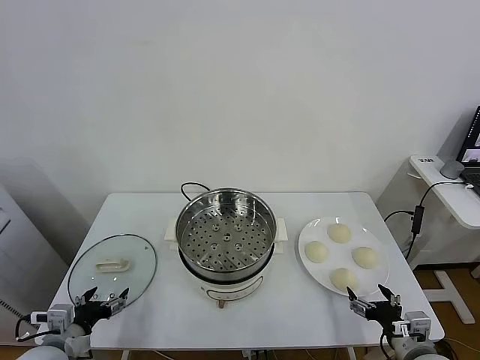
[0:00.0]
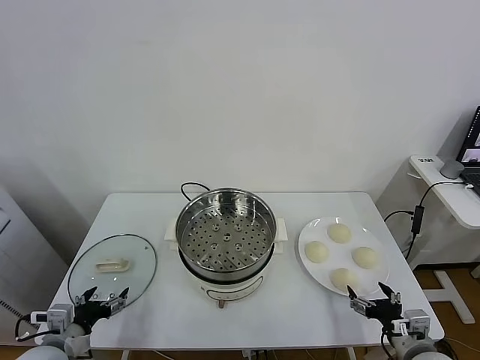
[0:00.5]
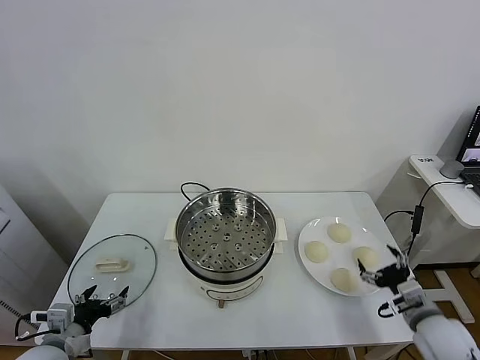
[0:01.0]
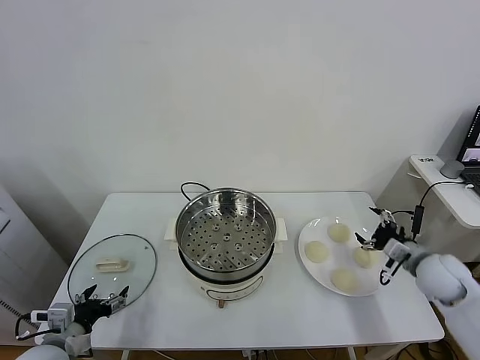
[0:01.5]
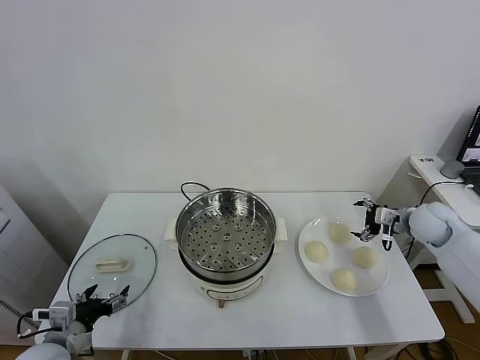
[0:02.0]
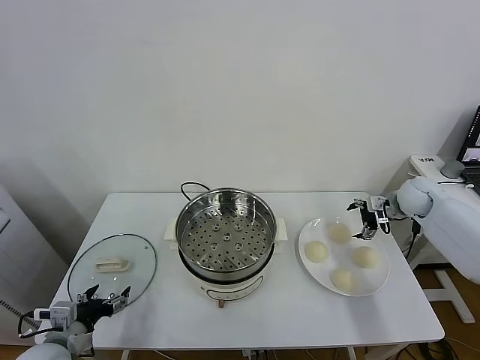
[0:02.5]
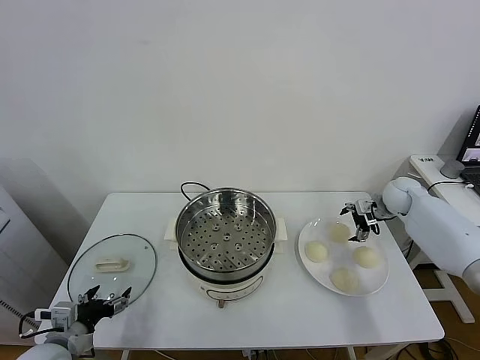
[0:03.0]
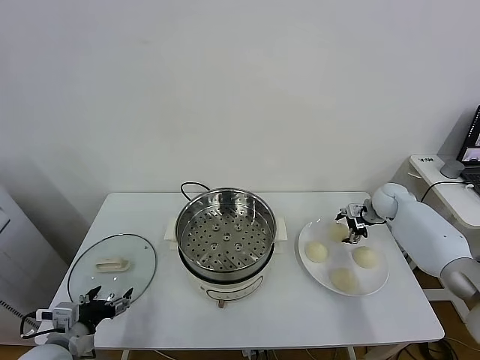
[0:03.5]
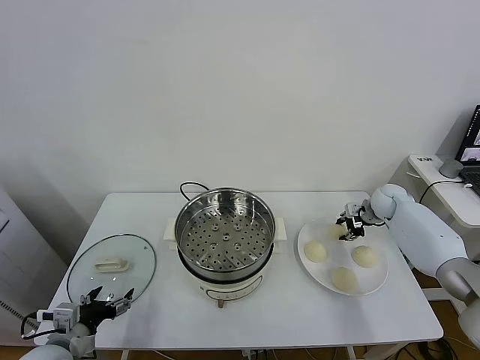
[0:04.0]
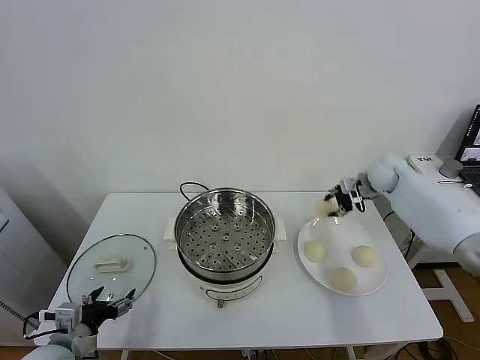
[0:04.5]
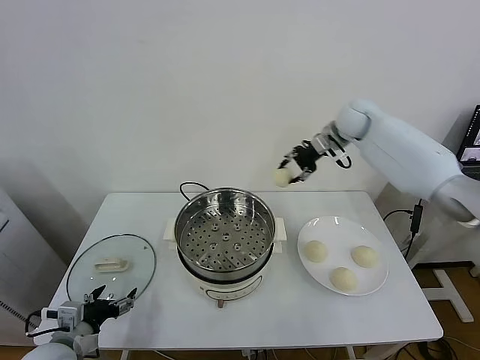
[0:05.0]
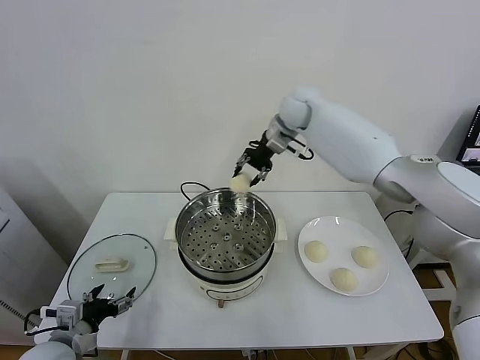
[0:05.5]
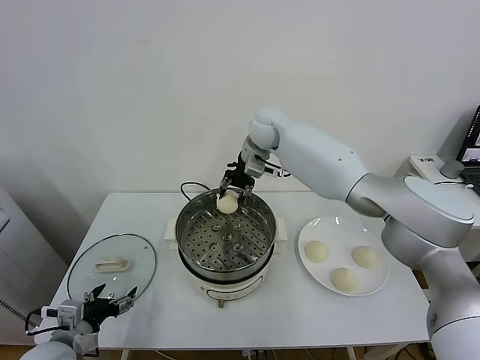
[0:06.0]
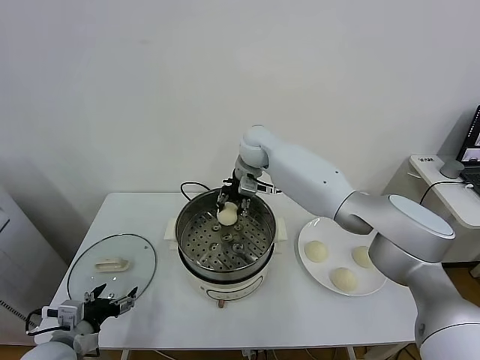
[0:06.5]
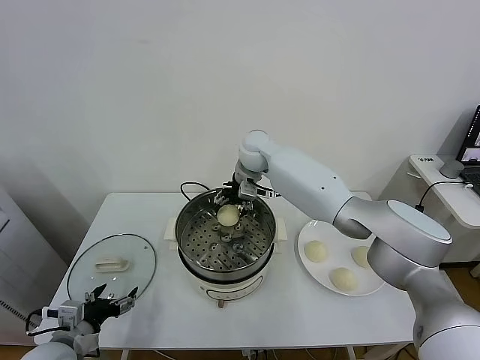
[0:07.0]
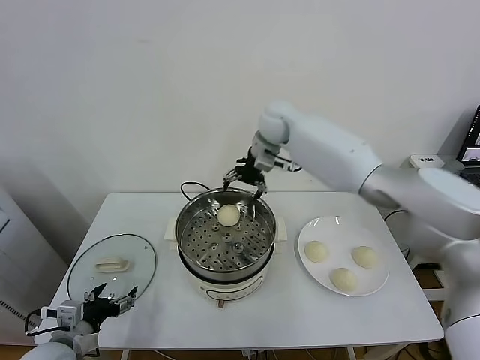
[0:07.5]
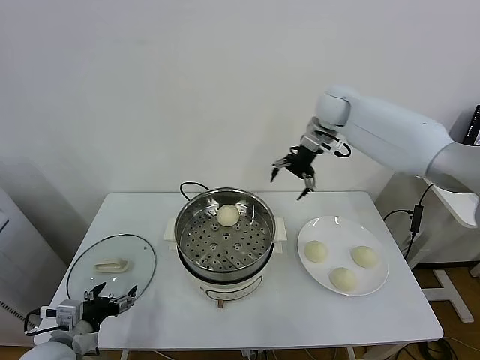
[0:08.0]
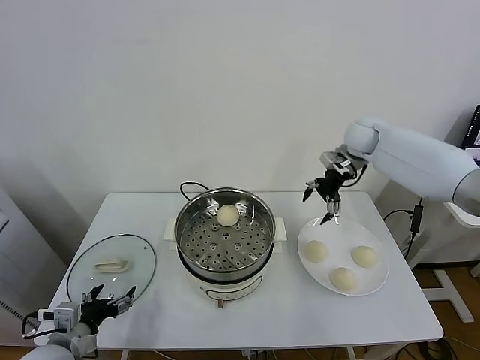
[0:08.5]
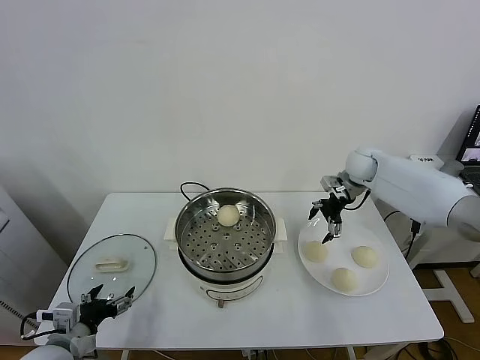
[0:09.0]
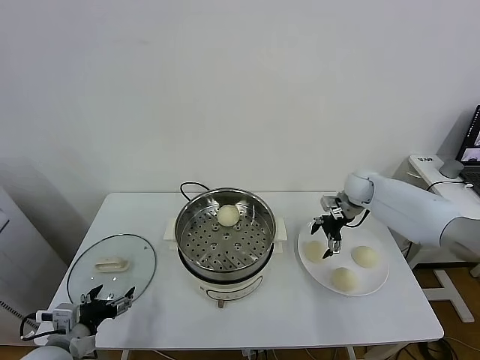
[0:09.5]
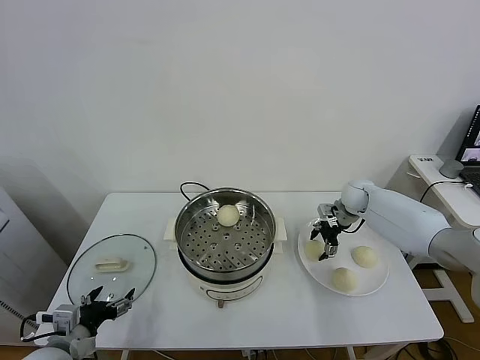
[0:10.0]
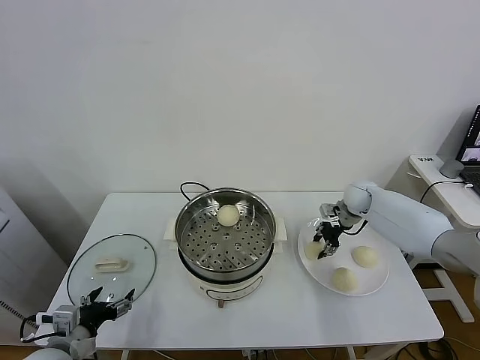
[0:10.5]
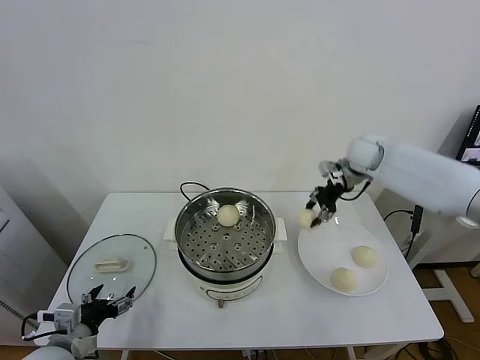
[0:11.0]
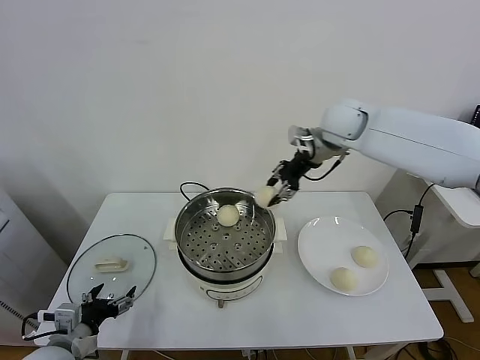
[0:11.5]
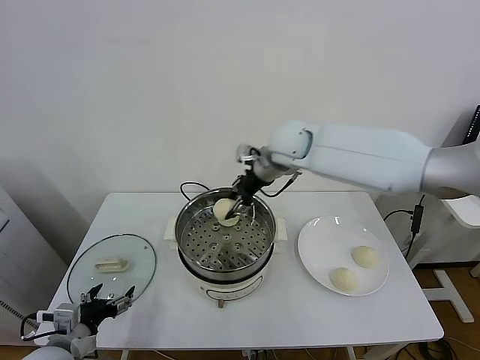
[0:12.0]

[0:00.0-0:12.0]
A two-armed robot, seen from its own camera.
Task of the whole recording: take steamed baozi put them in steamer.
Step, 0.0 to 3.5 s: Grasp the baozi in the plate with right gripper.
Step, 4.0 to 7.0 s: Place the baozi on the steamer with right gripper.
Step, 7.5 to 10.0 s: Grasp the baozi in the plate with right gripper.
2.0 to 4.0 s: The right gripper is displaced forward and downward by some 10 cm, and closes.
4.0 to 6.0 s: The right gripper is displaced to the left and upward by some 40 cm.
6.0 to 8.0 s: The right gripper is displaced to the right by roughly 20 cm, and opens.
8.0 to 10.0 s: The right gripper shifts approximately 25 cm downward, and closes its fingers.
10.0 to 12.0 s: The right gripper goes some 30 cm to the left and upward, and closes up.

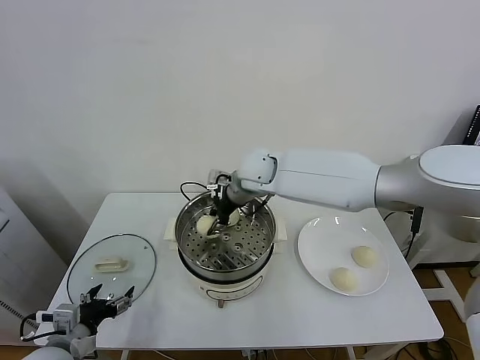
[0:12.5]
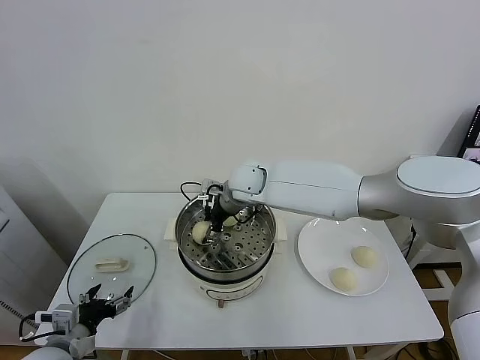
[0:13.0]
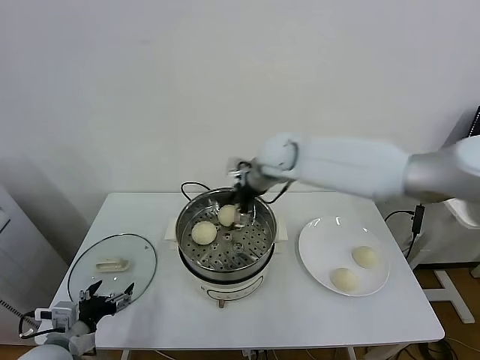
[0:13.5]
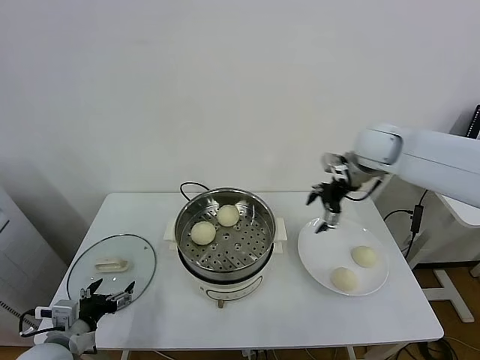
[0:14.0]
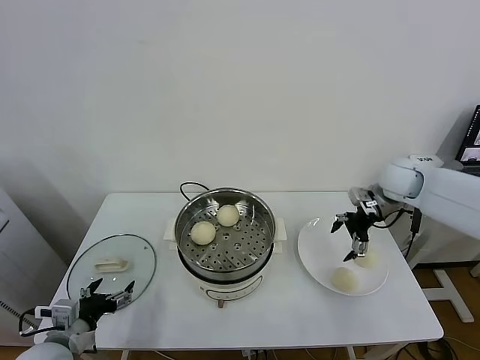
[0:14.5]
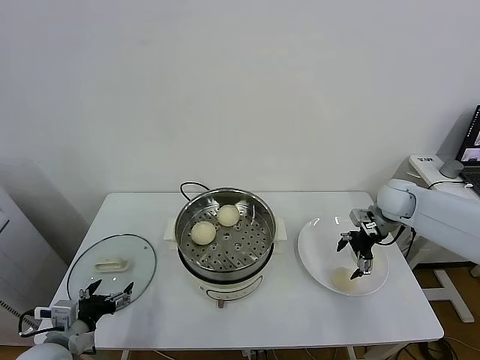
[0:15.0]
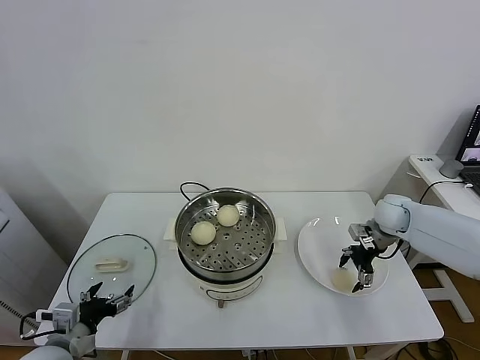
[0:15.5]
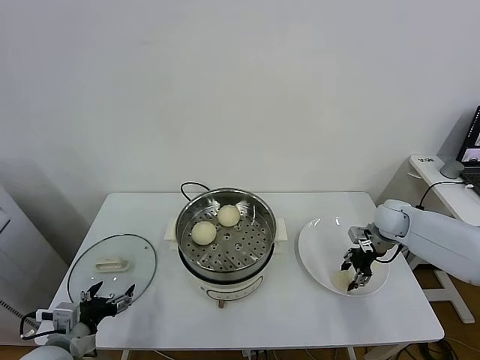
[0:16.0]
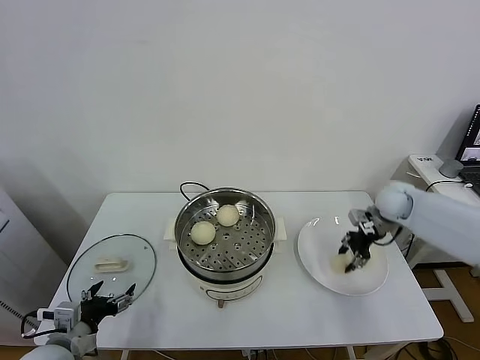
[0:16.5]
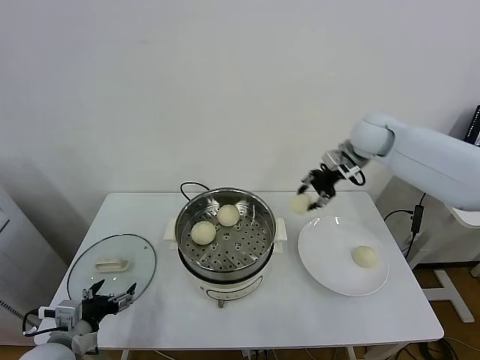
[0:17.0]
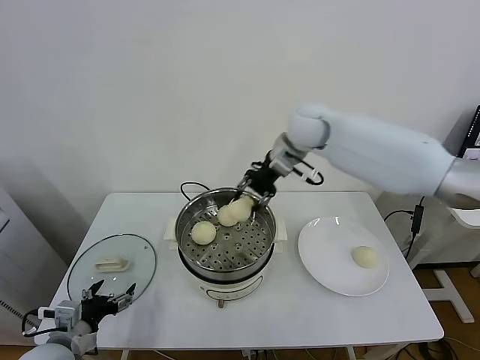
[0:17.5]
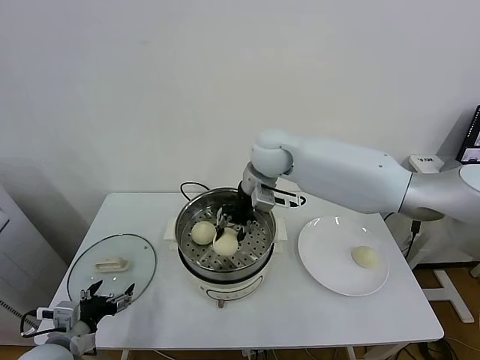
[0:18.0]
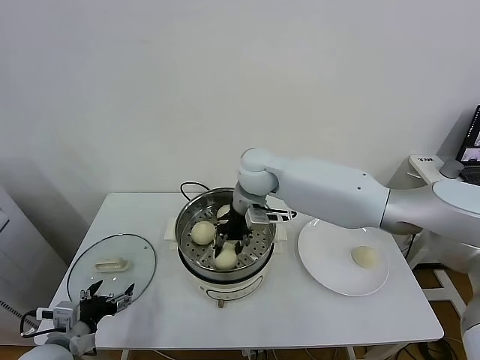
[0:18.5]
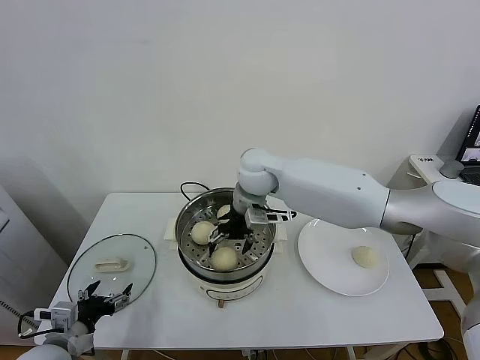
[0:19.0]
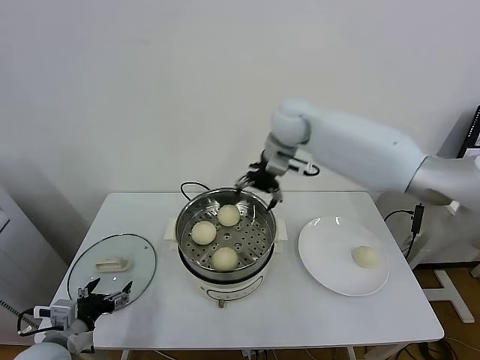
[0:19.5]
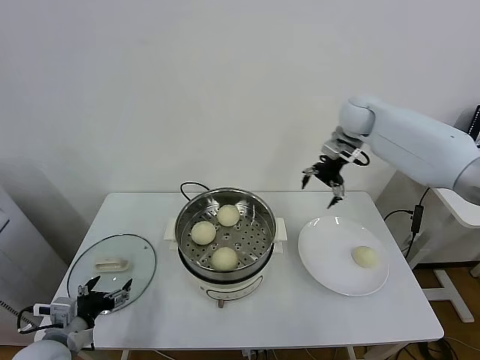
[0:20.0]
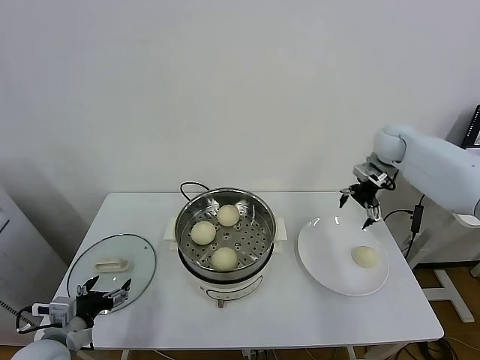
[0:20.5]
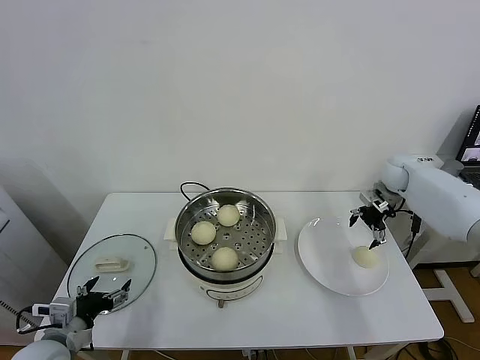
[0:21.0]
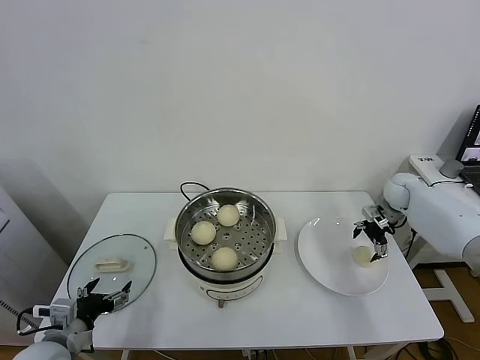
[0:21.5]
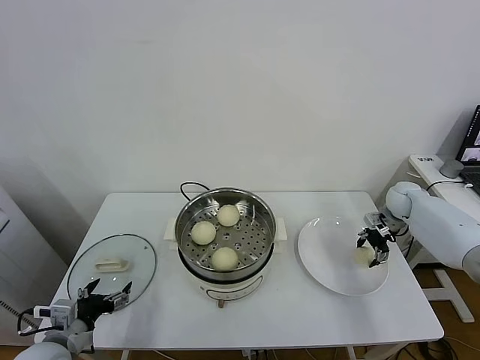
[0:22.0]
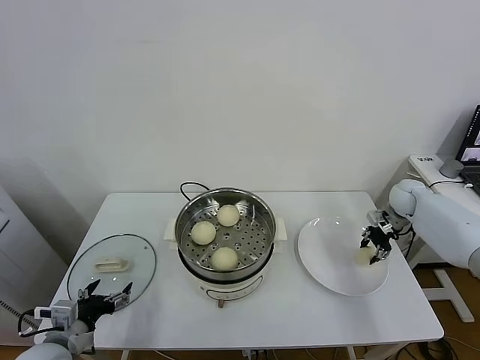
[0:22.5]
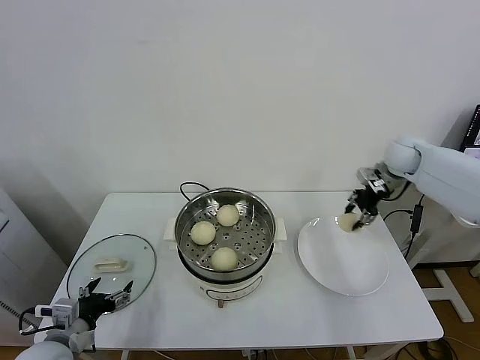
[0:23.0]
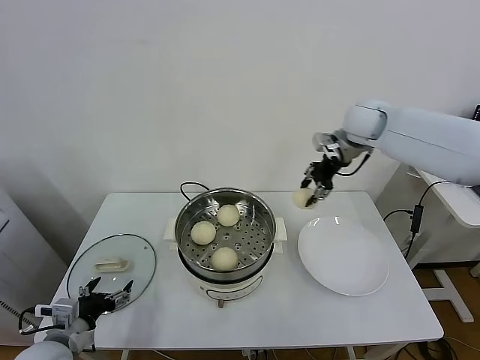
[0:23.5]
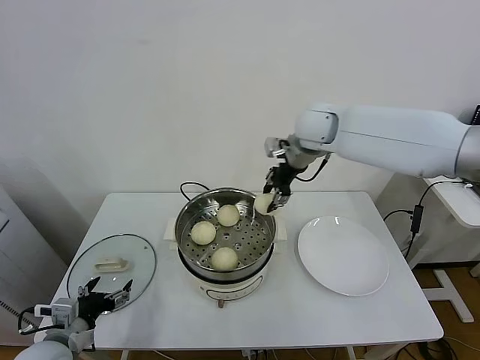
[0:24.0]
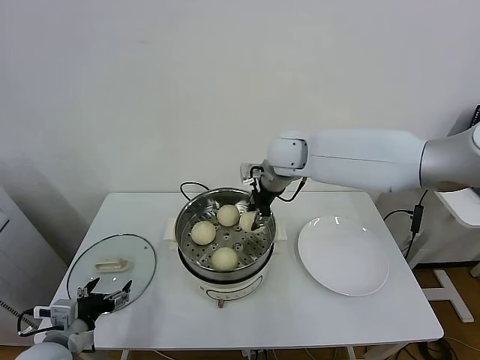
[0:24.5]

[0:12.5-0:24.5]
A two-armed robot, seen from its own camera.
Task of the whole recording: take steamed baozi put them in steamer.
Step, 13.5 to 15.5 s: Grasp the baozi in the plate with right gripper.
Step, 16.0 to 18.5 s: Place the baozi on the steamer with right gripper.
Step, 19.0 to 22.0 s: Grasp the baozi in the plate with right gripper.
12.5 to 14.5 s: The right gripper moves to the right, approximately 35 cm, and opens.
14.5 to 16.5 s: The right gripper heads downward, covering about 5 cm, and closes up.
16.5 to 18.5 s: The right gripper moves to the left, some 35 cm.
18.5 to 20.5 s: The right gripper moves to the right, roughly 35 cm, and opens its fingers.
20.5 to 22.5 s: The right gripper moves downward and to the right, about 15 cm, and closes up.
22.5 to 24.5 s: The right gripper heads to the left and upward, covering roughly 40 cm.

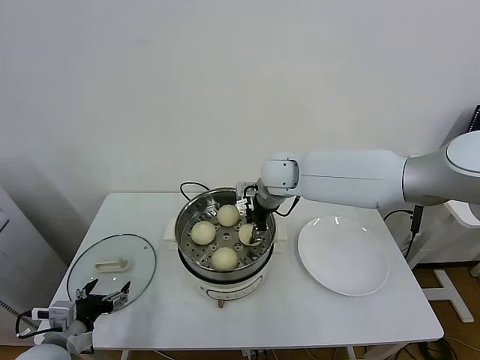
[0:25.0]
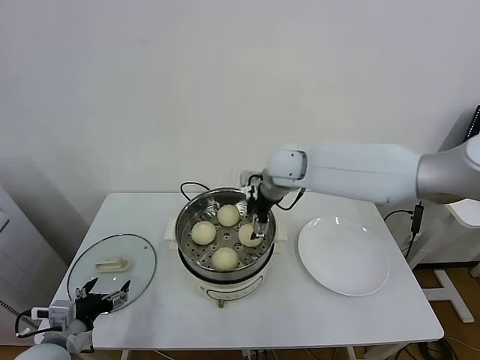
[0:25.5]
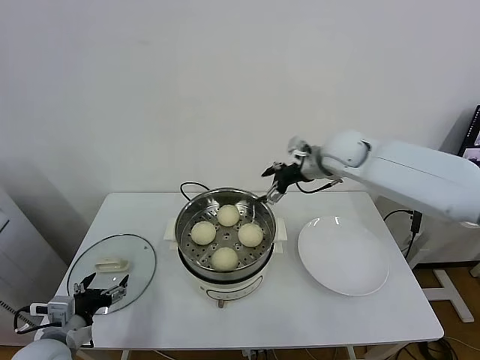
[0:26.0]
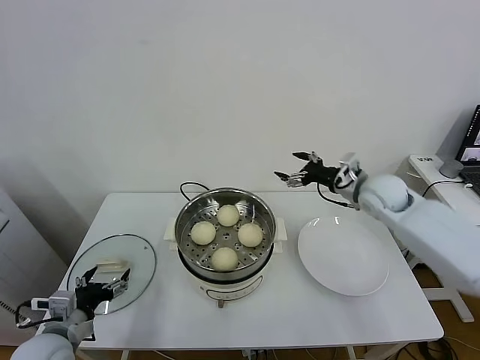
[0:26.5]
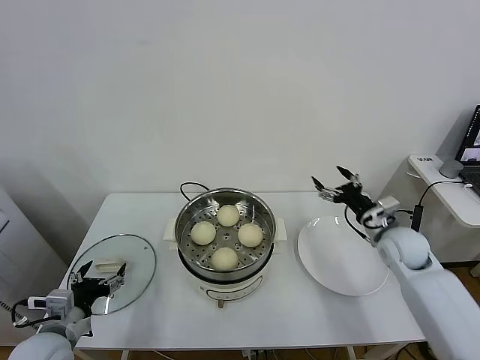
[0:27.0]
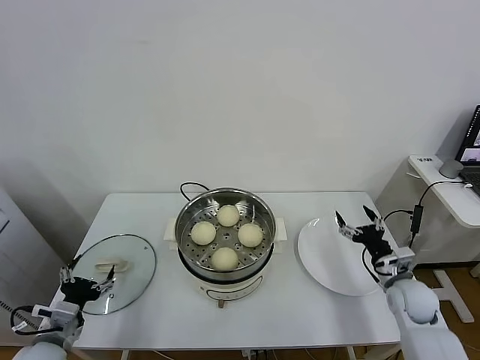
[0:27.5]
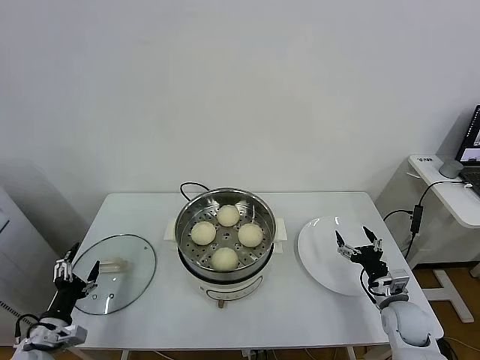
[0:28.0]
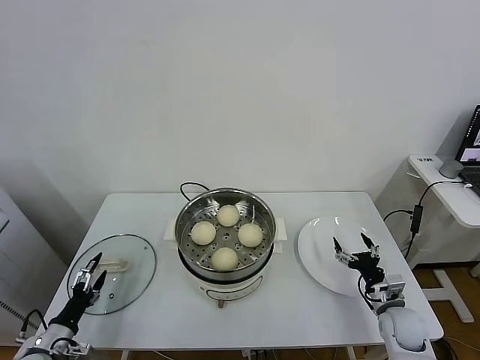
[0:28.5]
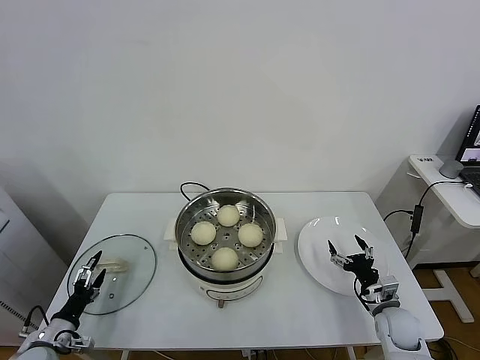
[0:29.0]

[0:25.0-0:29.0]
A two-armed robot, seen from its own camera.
Task of the whole recording: take steamed baozi put them in steamer.
25.0 to 27.0 s: The right gripper is displaced to the right and downward by roughly 30 cm, and opens up.
27.0 to 29.0 s: The left gripper heads downward and to the left, covering some 15 cm, while the right gripper goes approximately 20 cm downward and backward.
